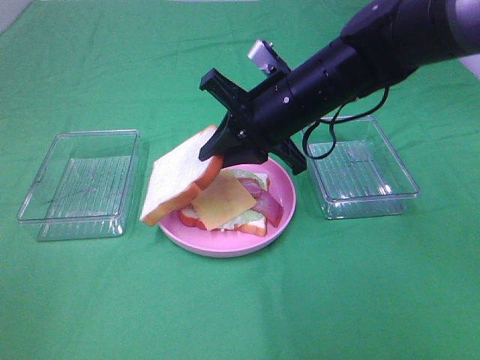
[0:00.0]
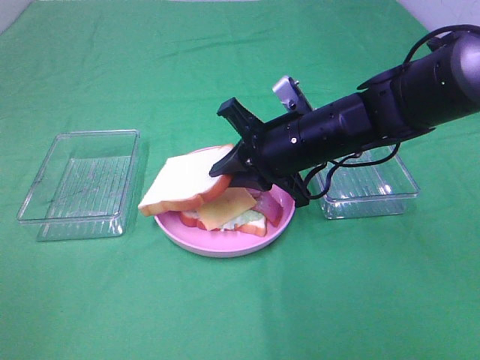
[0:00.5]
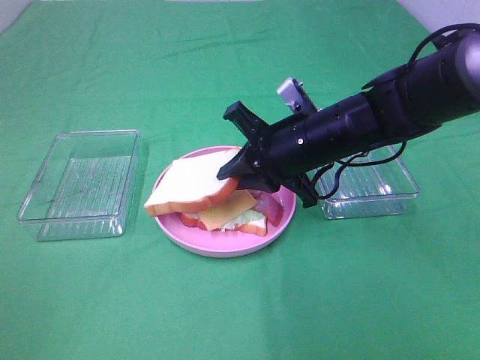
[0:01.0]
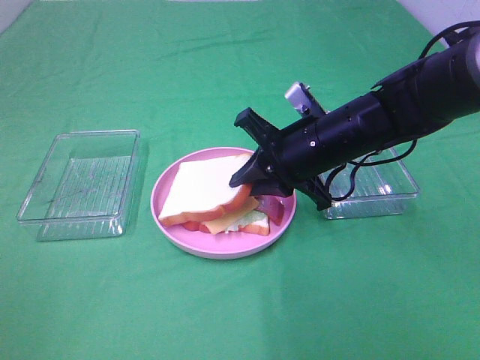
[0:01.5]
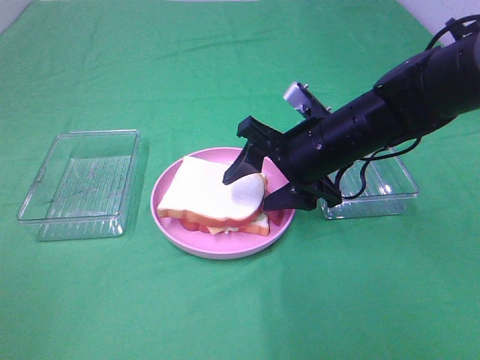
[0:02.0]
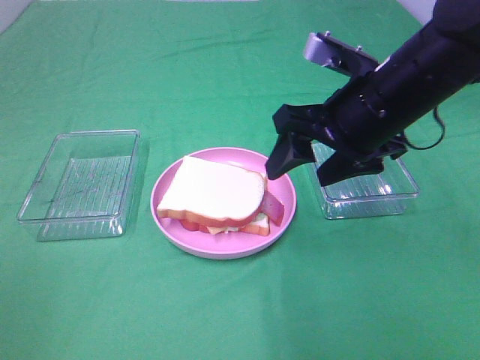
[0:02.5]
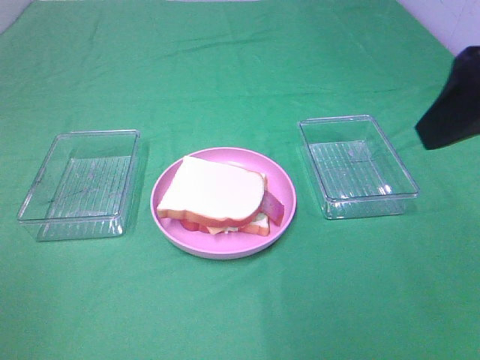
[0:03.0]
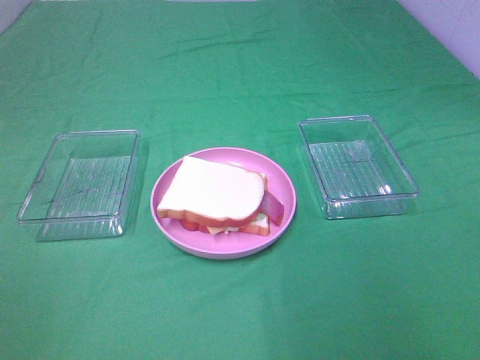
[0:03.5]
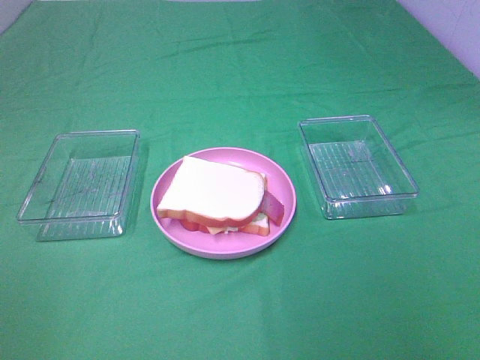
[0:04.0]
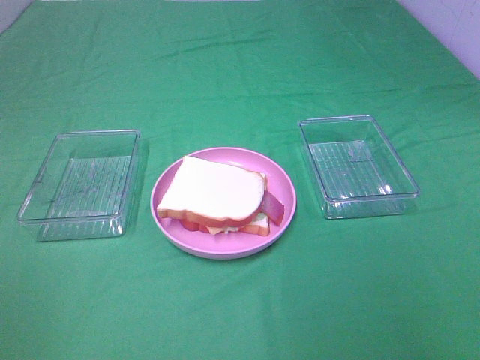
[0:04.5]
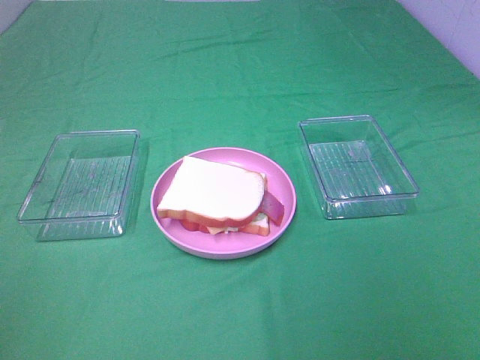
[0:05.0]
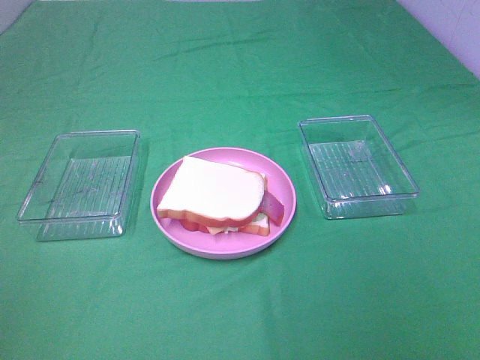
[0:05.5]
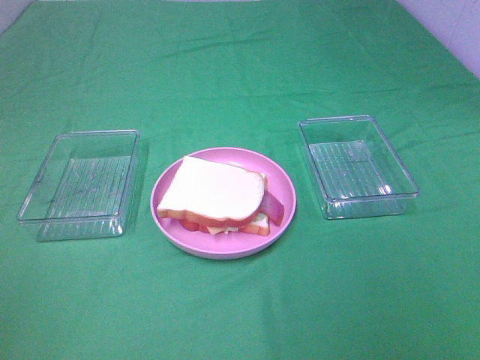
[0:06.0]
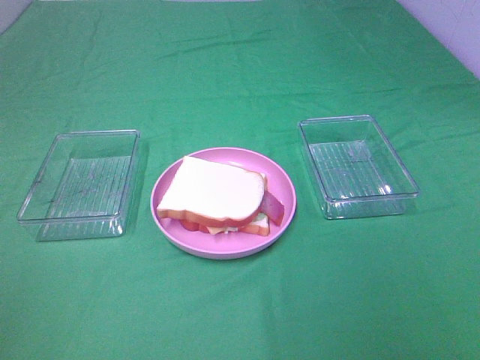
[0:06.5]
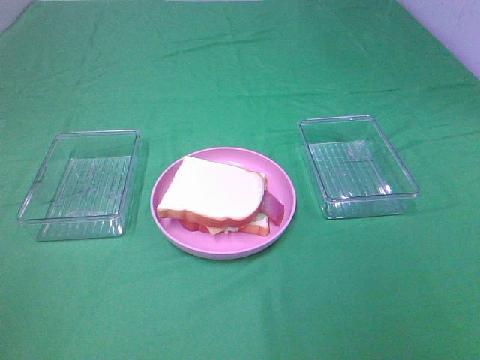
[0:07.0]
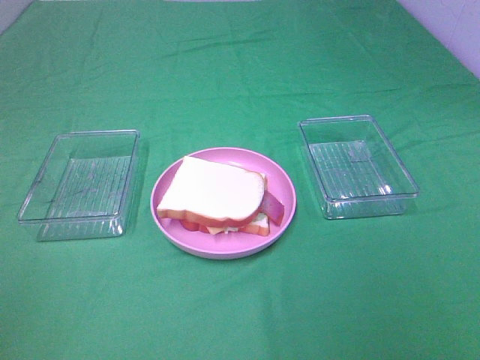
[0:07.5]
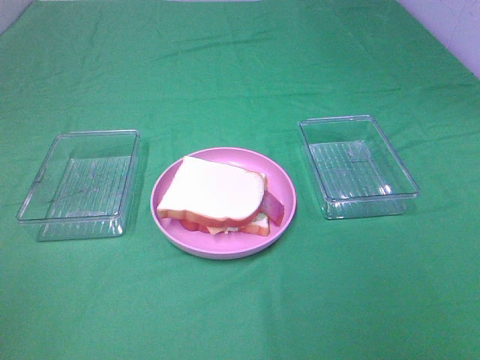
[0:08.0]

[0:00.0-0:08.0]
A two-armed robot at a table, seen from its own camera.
Task of the whole recording: Make sandwiches.
Step, 0:00.0 to 0:02.0: Right hand:place the bread slice on the cheese slice.
0:00.0 to 0:02.0: The right gripper changes place by roughly 5 cm, and opens its fingers.
0:02.0 to 0:04.0: The right gripper travels backward, to the right and upward by approximately 40 cm.
0:06.0 to 0:08.0: The two grippers keep their place.

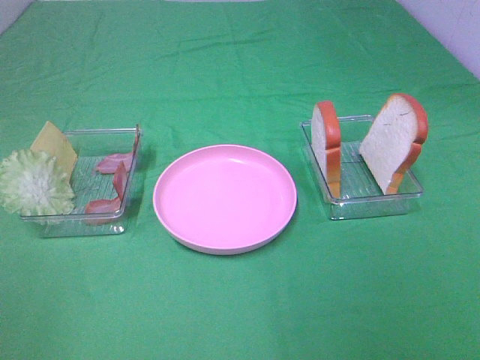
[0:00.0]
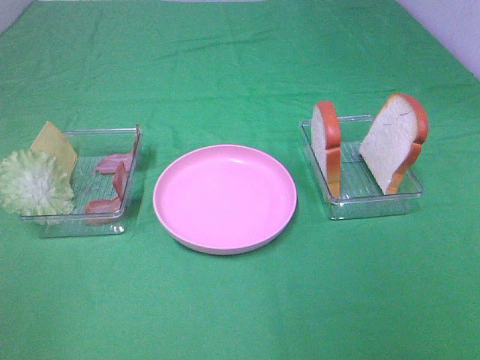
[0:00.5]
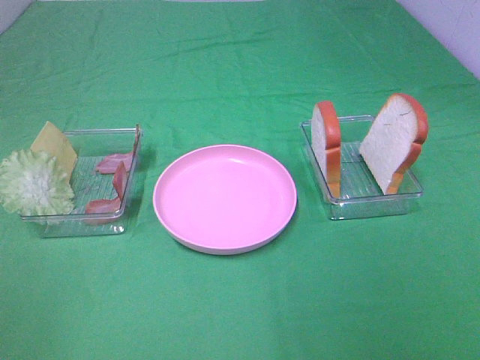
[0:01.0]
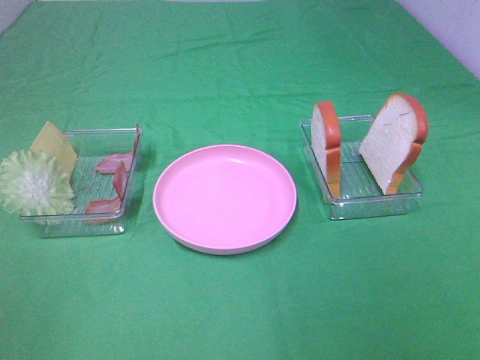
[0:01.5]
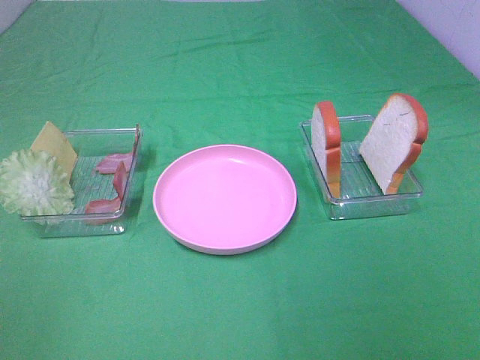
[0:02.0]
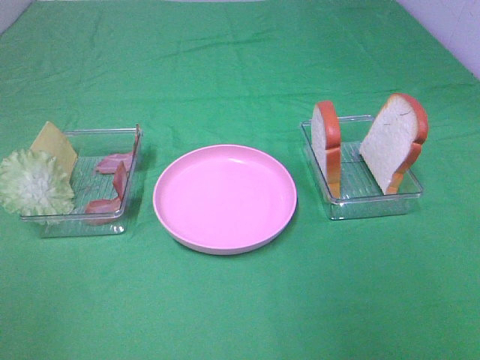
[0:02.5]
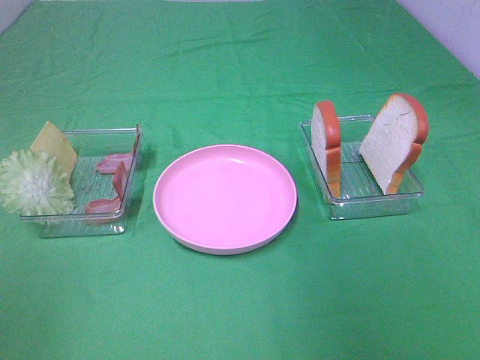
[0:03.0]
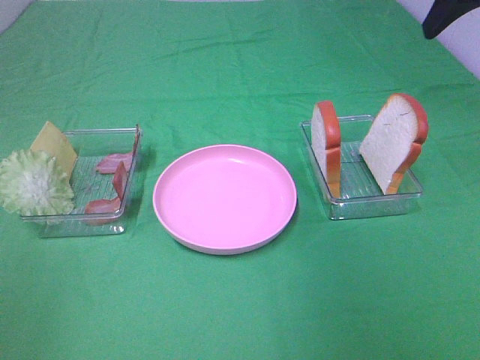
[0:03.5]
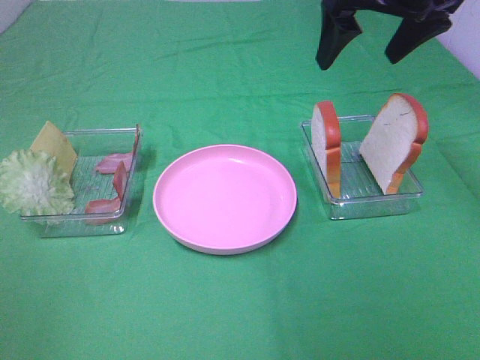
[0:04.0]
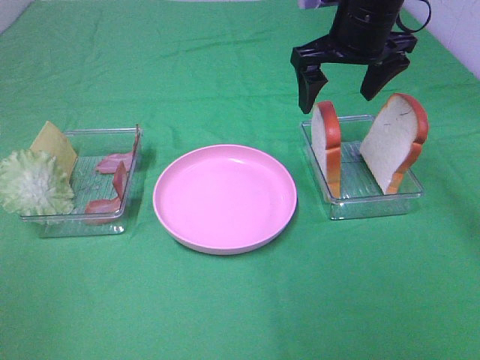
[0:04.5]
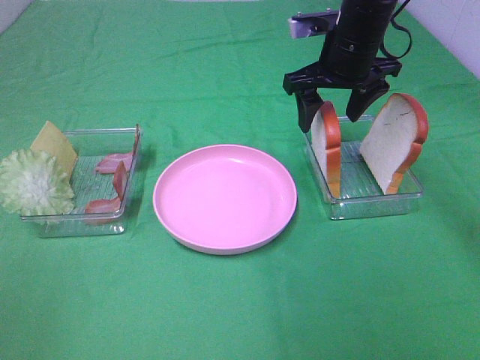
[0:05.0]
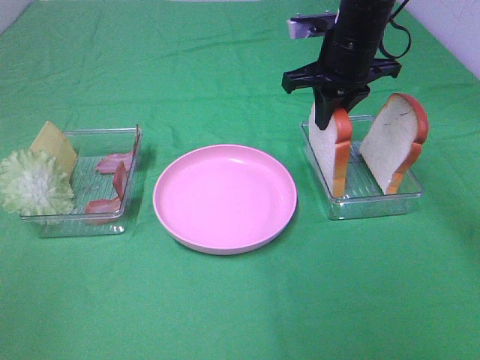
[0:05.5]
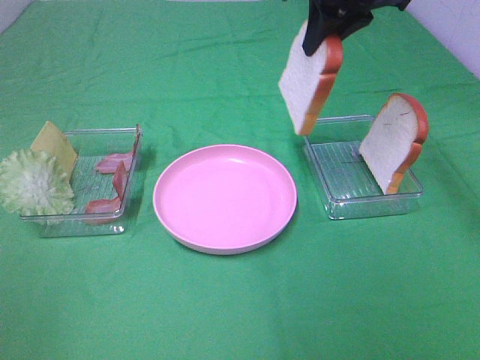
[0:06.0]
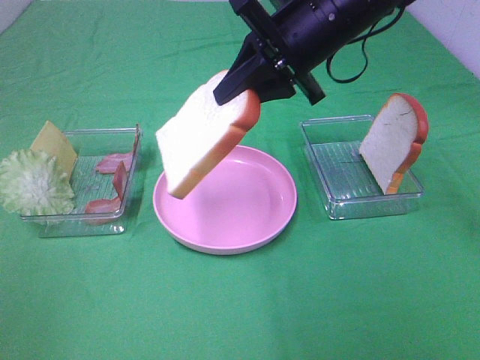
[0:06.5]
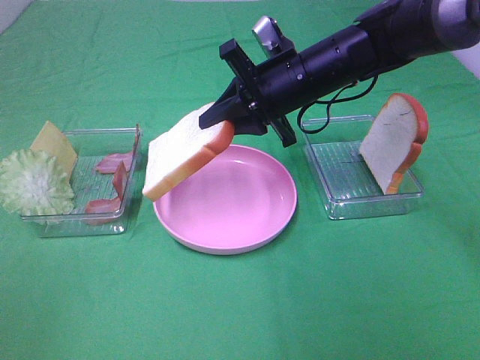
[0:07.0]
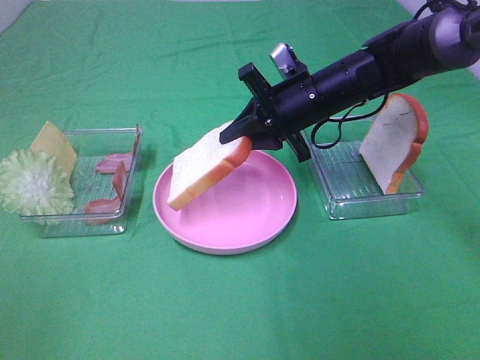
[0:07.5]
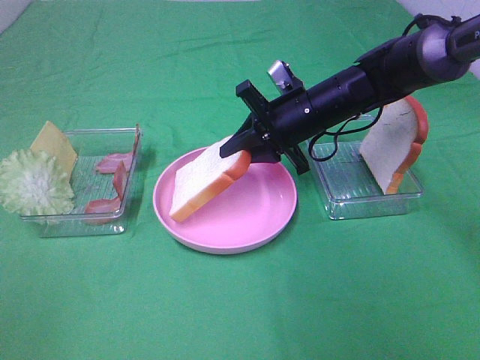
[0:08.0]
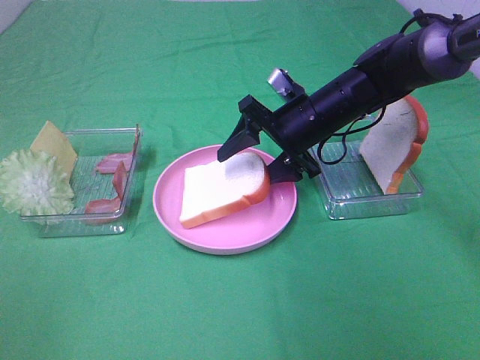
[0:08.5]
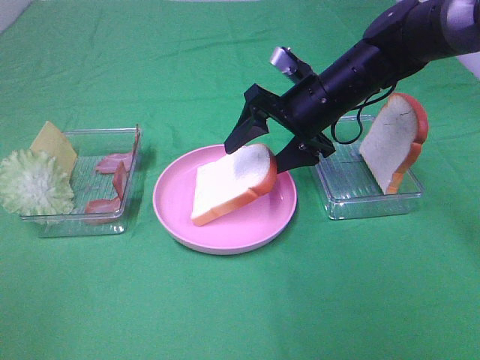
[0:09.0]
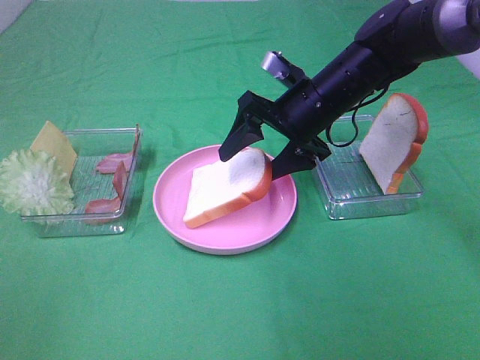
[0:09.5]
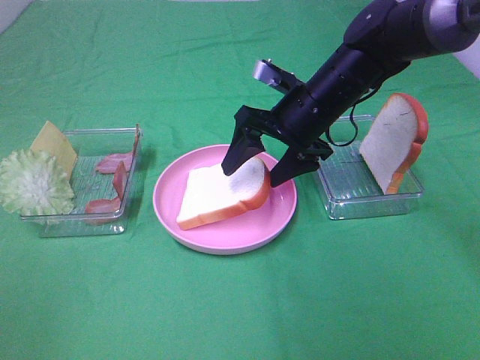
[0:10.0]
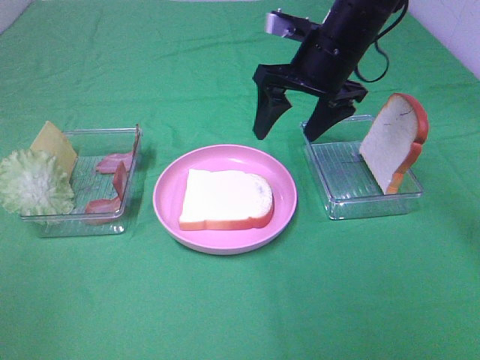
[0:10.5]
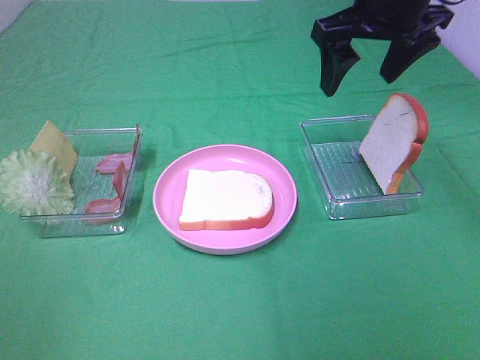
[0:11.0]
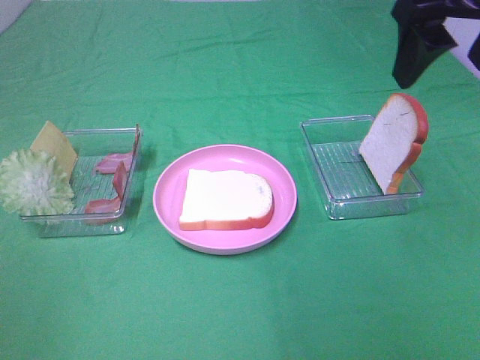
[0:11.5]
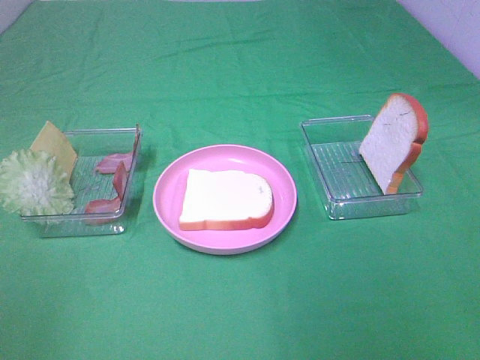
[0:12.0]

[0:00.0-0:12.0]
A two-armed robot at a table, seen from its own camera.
Task of the whole recording: Make sandwiches.
Step, 0:00.0 to 0:05.0: Right hand:grab the bread slice.
Step, 0:05.5 to 0:10.0: Right hand:place the bread slice on the plate.
0:00.0 to 0:02.0: Neither gripper changes place.
0:02.0 to 0:04.0: The right gripper moves forward, approximately 40 cm.
0:04.0 to 0:06.0: The right gripper reaches approximately 10 cm downward, then returns, and closes its fingers.
0:06.0 to 0:08.0: The right gripper is displaced downward by some 20 cm.
0:08.0 to 0:10.0: The right gripper opens.
0:10.0 to 0:12.0: The right gripper goes approximately 35 cm backward, upward and to the right.

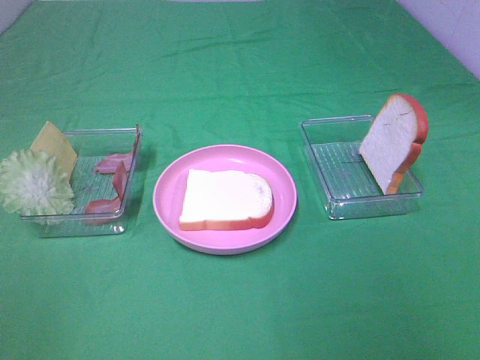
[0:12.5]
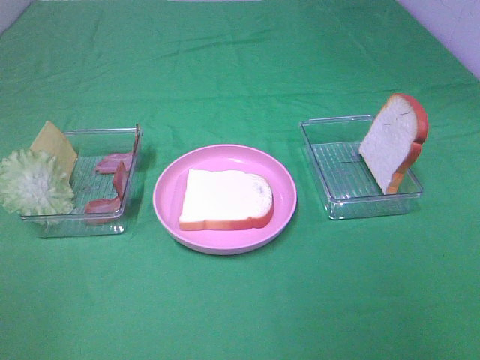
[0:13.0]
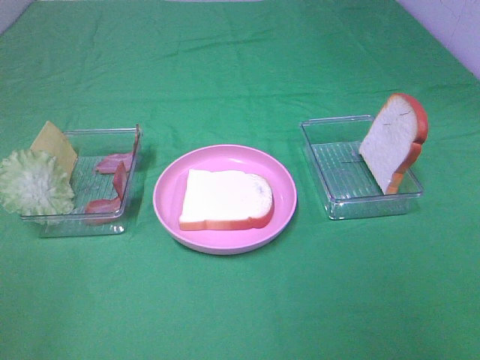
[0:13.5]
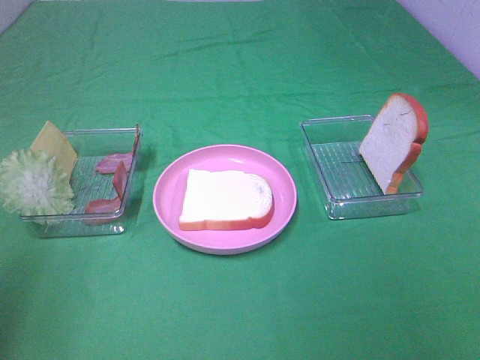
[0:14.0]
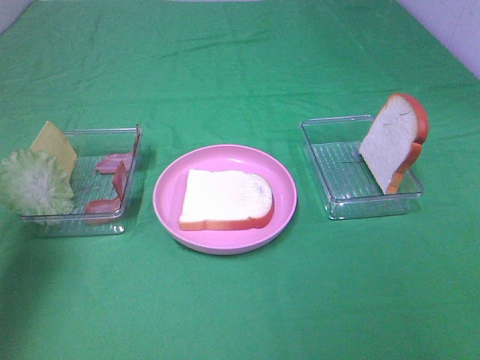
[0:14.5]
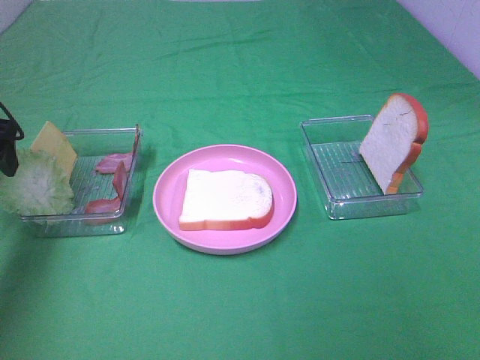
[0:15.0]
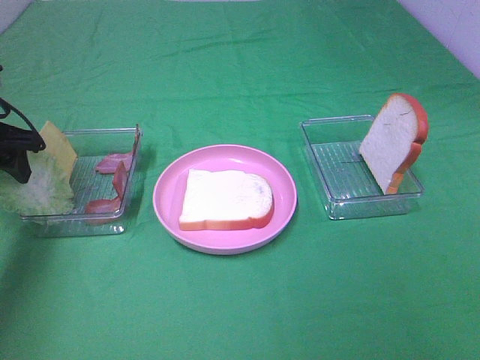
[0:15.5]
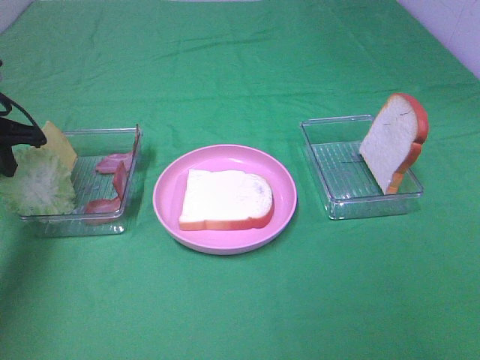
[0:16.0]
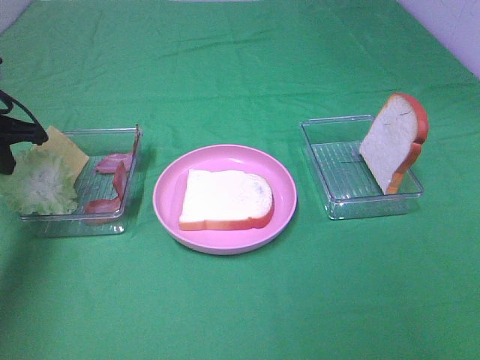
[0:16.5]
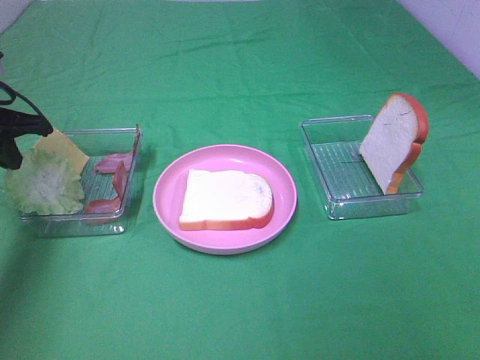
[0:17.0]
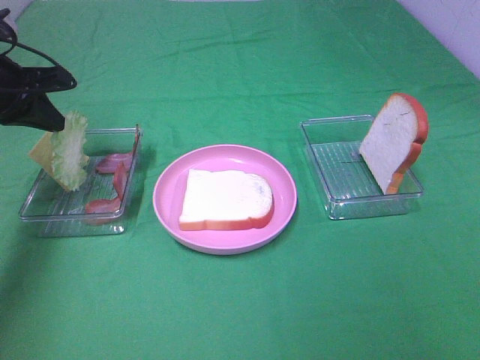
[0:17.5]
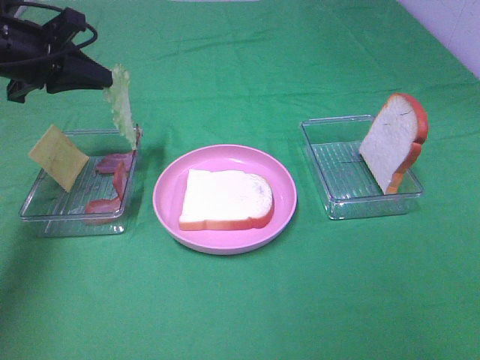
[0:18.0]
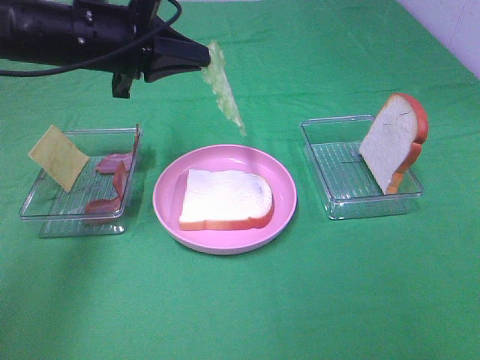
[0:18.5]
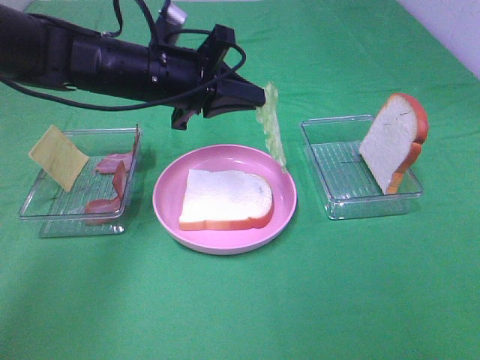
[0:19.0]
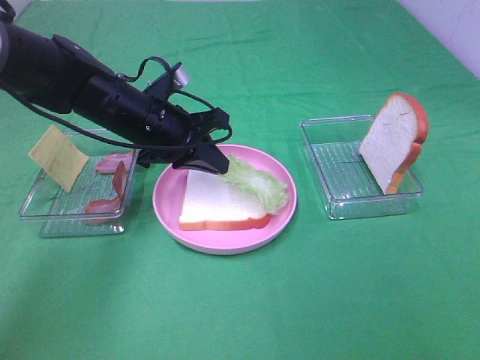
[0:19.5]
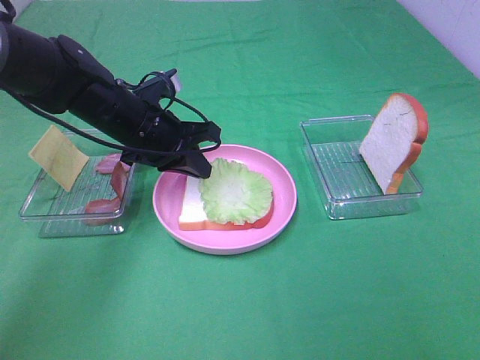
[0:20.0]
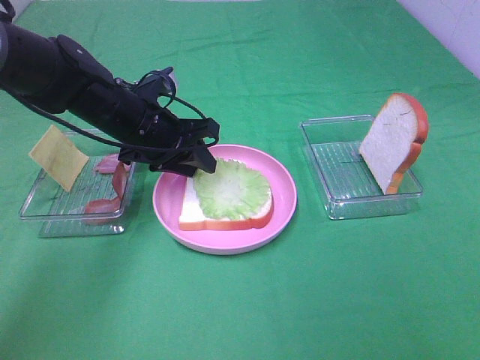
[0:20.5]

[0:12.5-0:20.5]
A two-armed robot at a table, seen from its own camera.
Task of the whole recording: Make sandwiches.
Step, 0:12.5 to 0:16.5: Left hand:grab the lettuce slice.
0:12.5 to 0:14.5: The left gripper travels forward by approximately 25 cm.
0:14.5 to 0:16.5: The left gripper travels forward and downward by some 15 cm, and closes.
0:16.5 to 0:18.5: The left gripper heads to the right, covering roughly 15 cm.
0:18.5 to 0:20.5: The left gripper travels downward by some 10 cm, and opens up.
